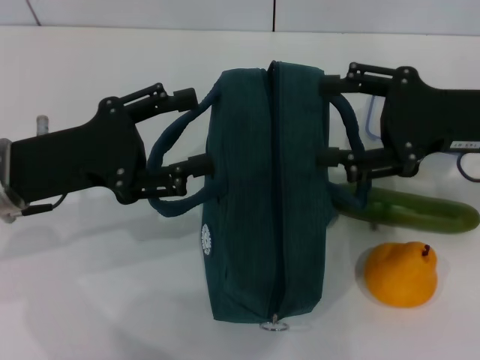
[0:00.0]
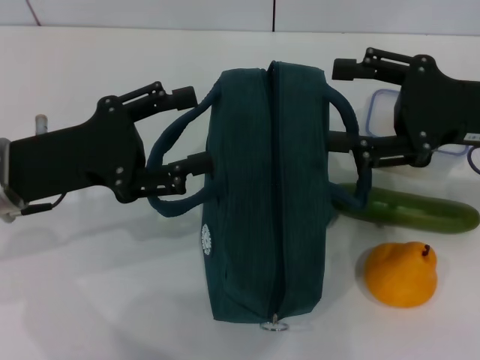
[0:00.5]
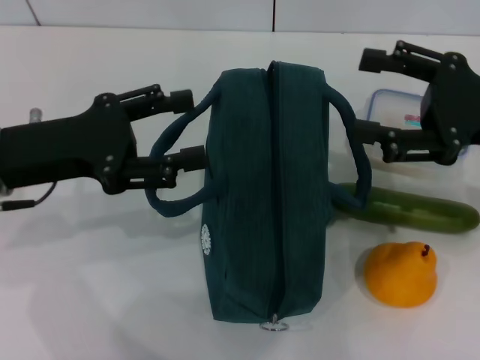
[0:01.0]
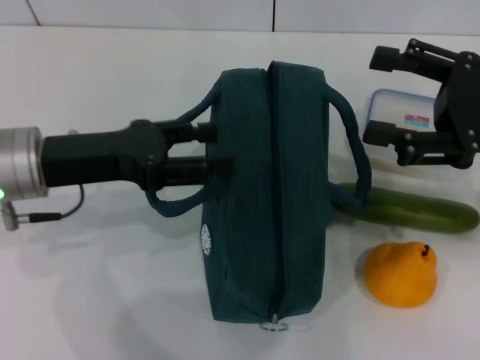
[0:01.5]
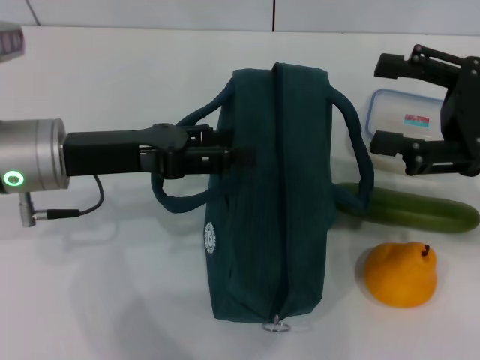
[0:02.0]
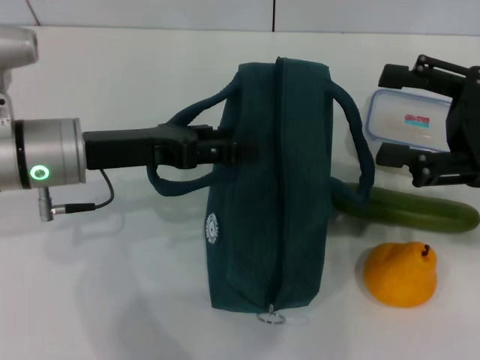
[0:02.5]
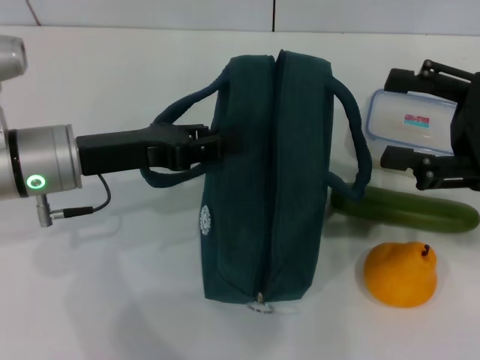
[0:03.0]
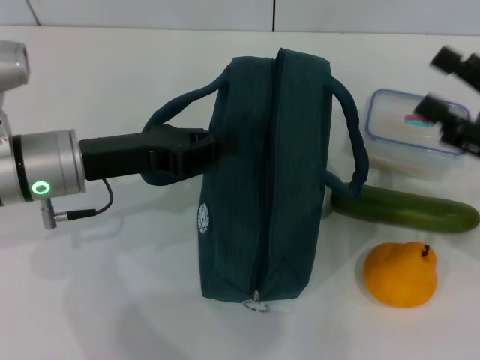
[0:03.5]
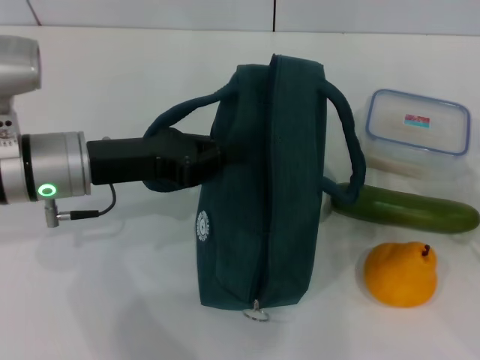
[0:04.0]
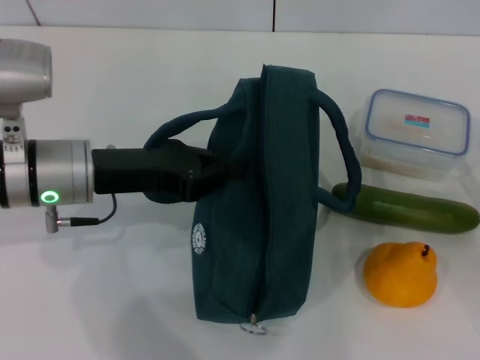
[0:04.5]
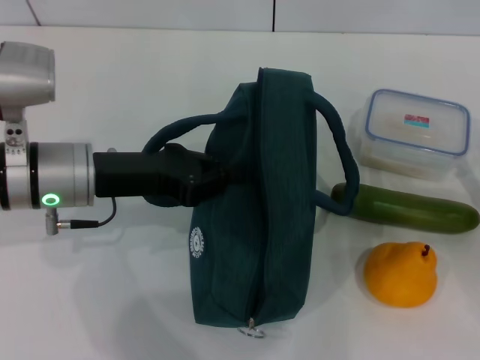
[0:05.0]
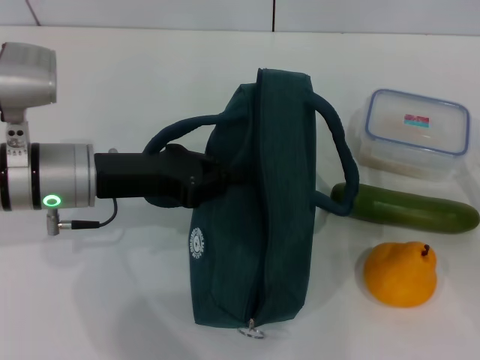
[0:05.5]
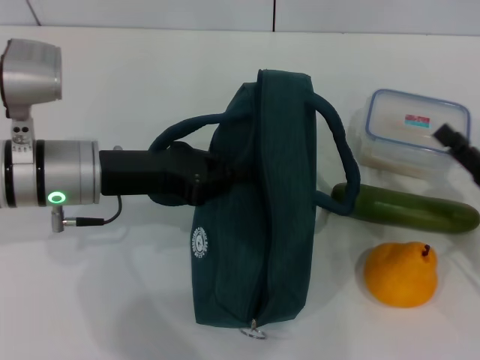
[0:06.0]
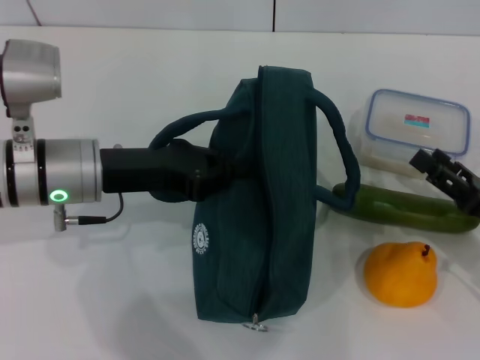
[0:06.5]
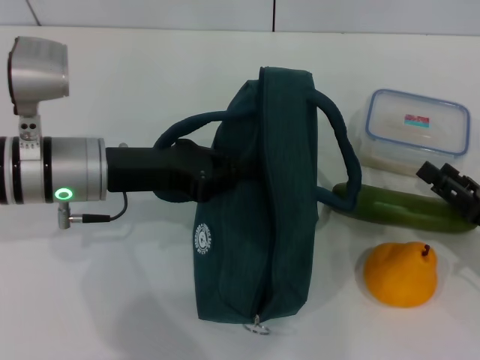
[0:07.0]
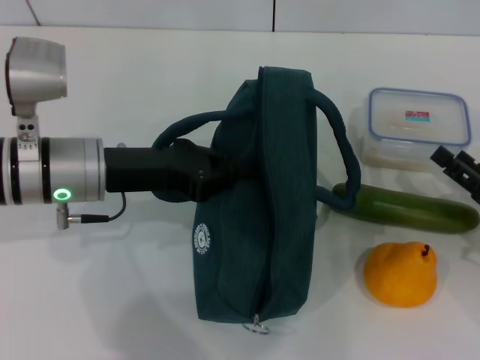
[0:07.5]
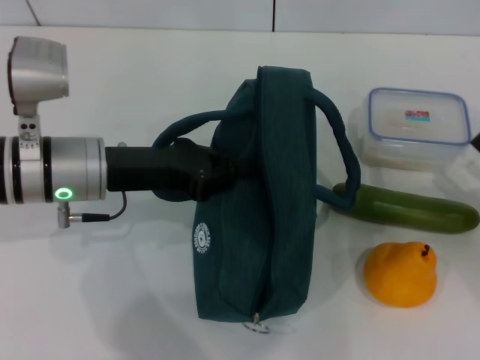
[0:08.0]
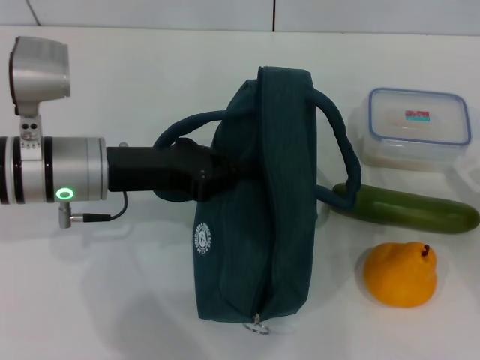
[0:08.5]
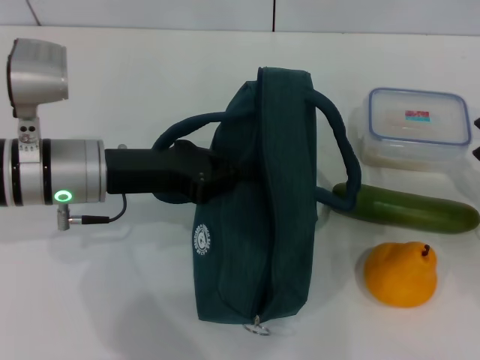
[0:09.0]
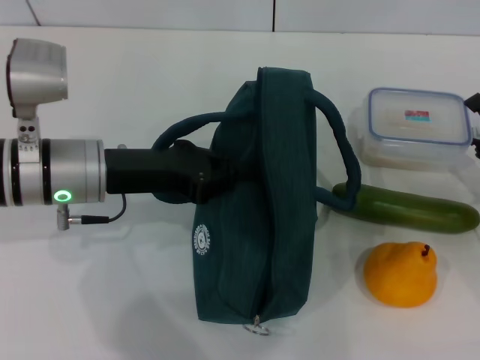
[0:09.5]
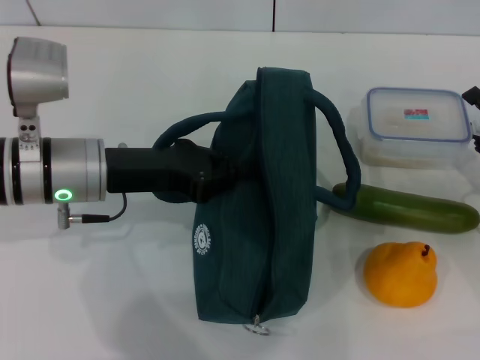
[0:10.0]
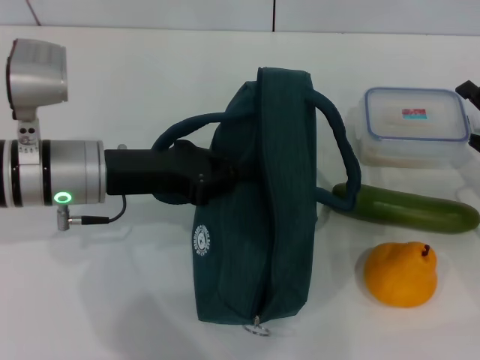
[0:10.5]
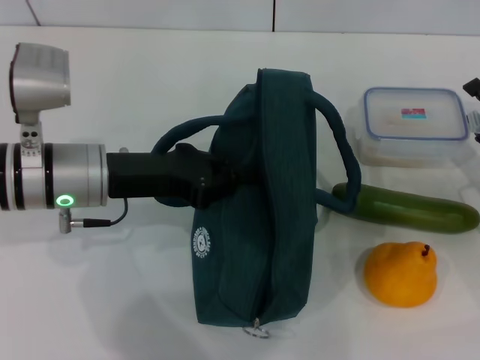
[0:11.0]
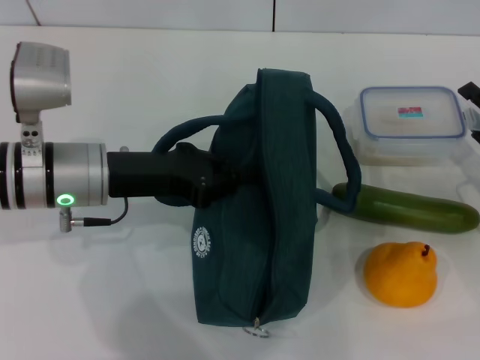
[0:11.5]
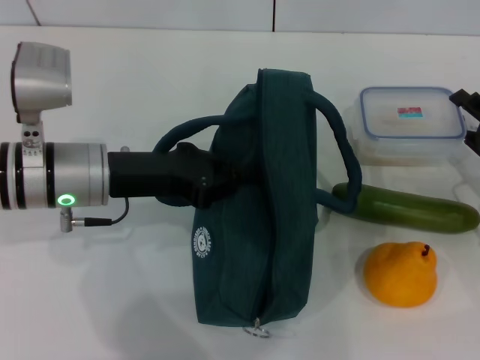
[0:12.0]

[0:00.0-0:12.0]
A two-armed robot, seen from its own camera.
Step, 0.0 to 3.0 s: Hold the lunch bag with your left hand.
2.0 to 4.0 s: The right gripper is displaced downward and backward by roughly 15 cm. The left gripper closes up.
6.0 to 8.0 s: The grippers move only a little.
8.0 to 10.0 s: The right gripper travels forward by roughly 5 cm.
10.0 to 12.0 s: The grippers stay close to where they were, moving slightly.

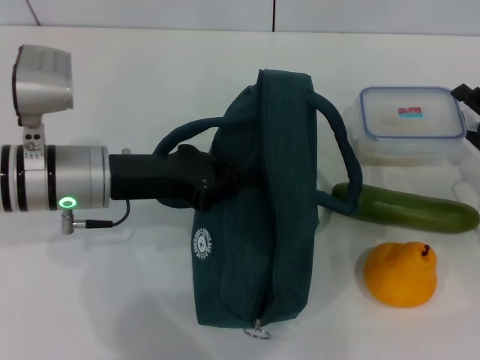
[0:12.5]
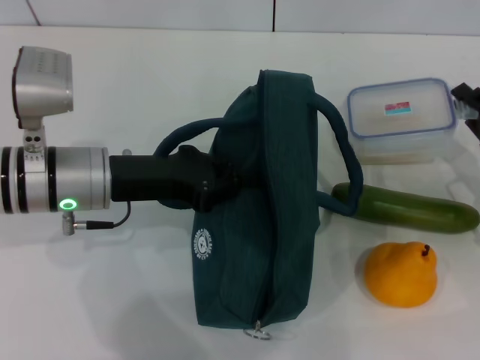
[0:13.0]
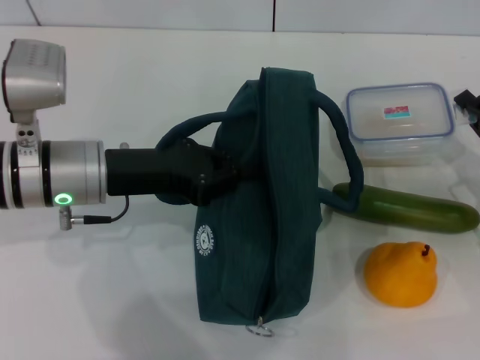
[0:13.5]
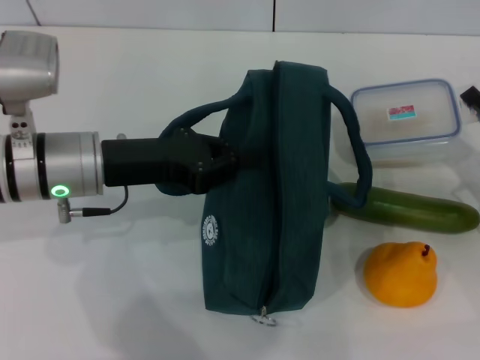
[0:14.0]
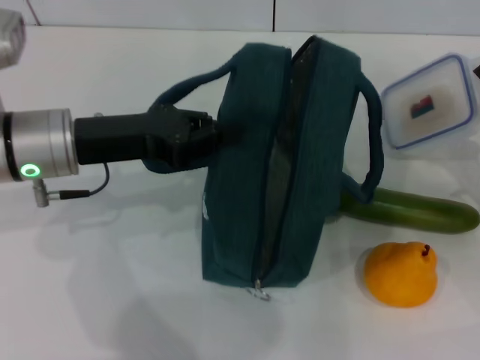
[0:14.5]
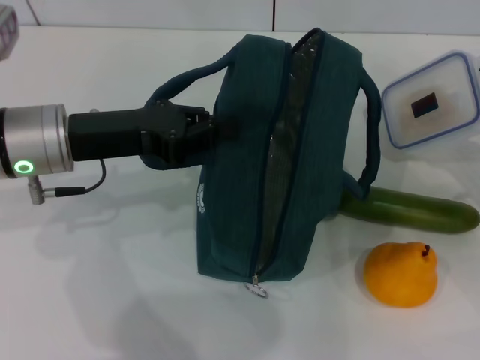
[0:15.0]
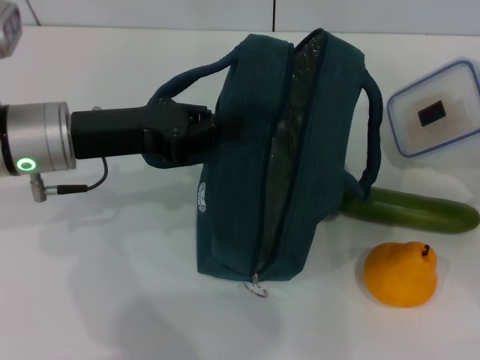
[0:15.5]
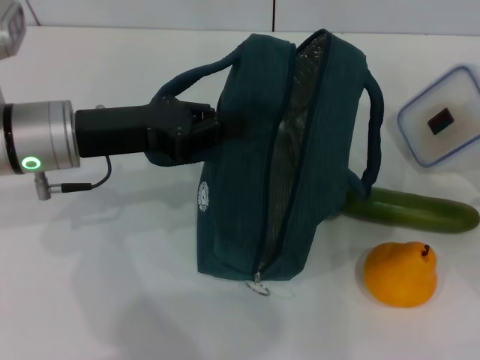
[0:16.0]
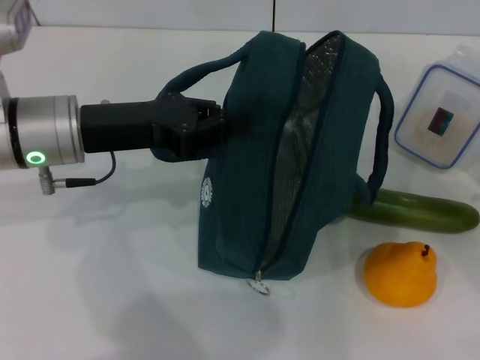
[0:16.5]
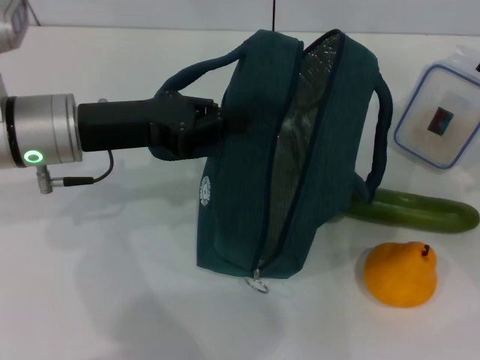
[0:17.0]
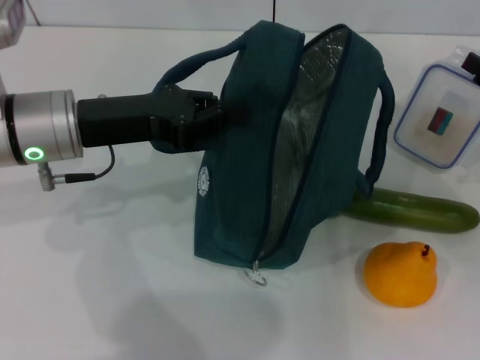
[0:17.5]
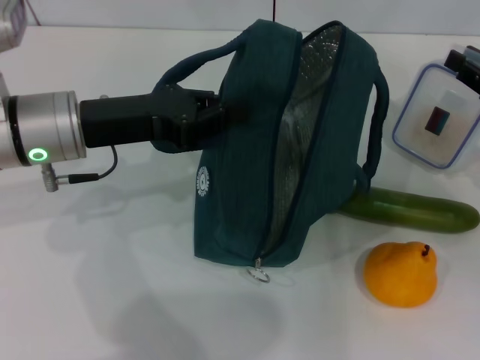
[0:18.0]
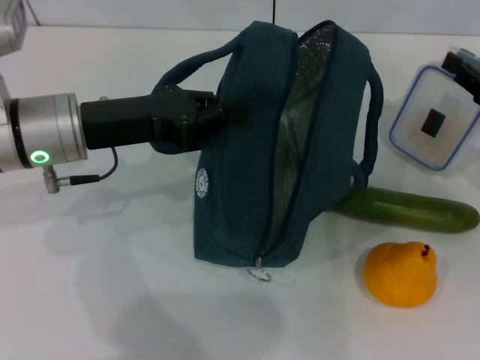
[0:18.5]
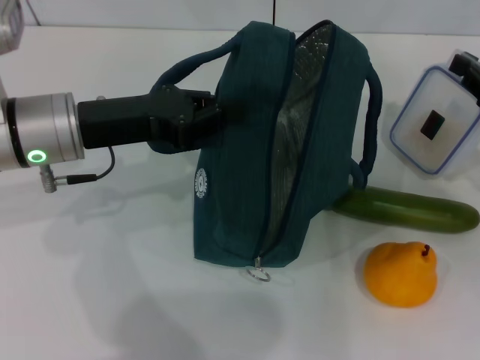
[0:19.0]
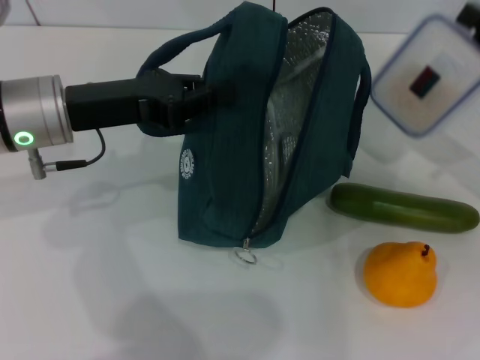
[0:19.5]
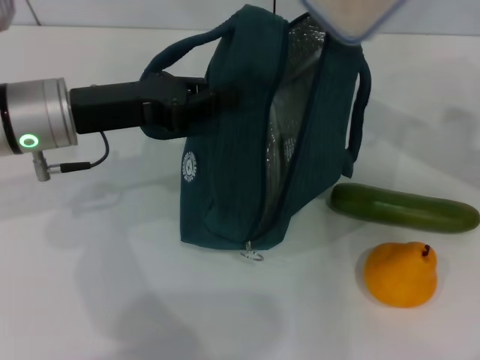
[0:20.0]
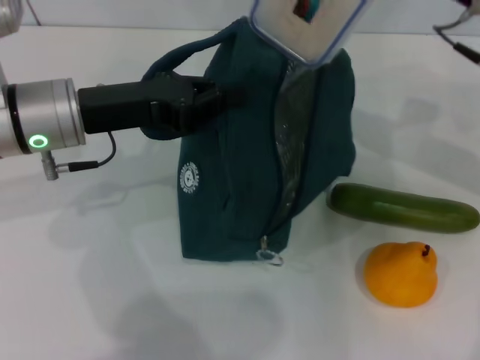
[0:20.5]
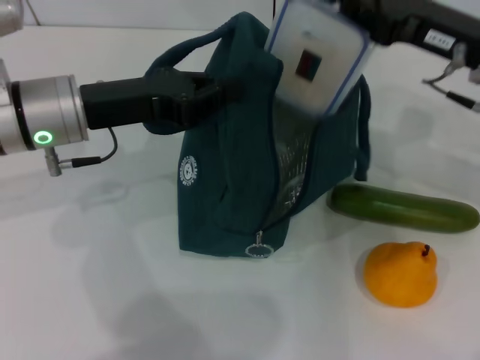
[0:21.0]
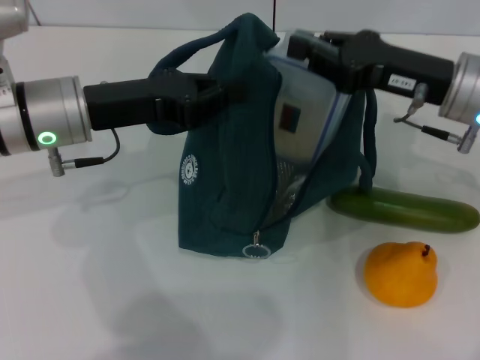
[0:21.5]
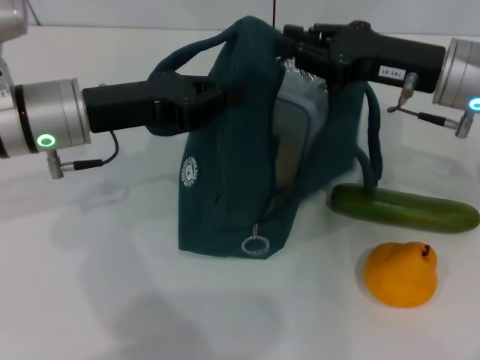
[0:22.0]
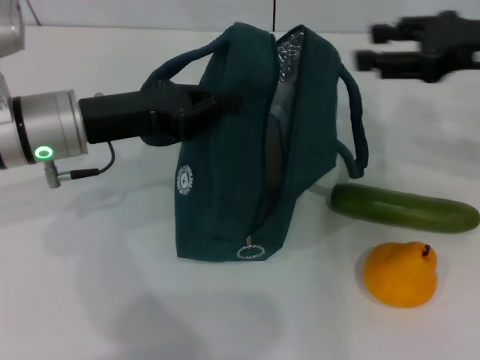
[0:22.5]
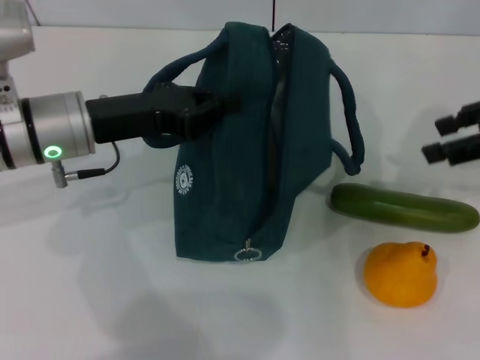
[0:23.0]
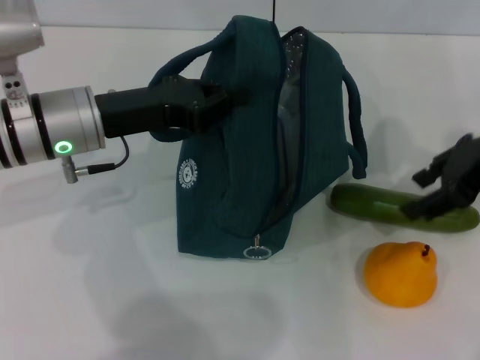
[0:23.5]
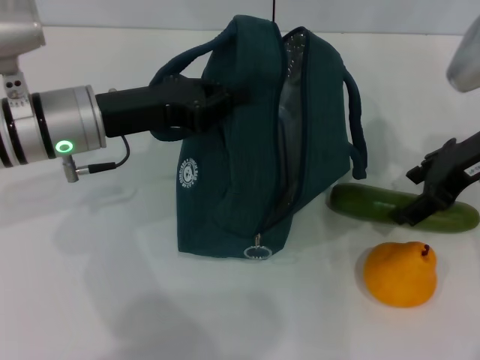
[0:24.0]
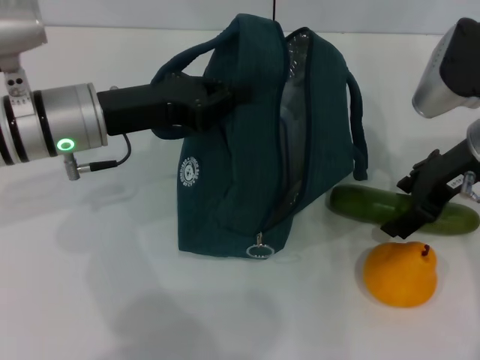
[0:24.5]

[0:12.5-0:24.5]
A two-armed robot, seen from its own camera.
Step, 12.5 to 18.5 s: Pick up the lunch box with your right hand.
Step, 19.0 to 22.0 s: Place the lunch box into the lunch bag with your right hand.
12.5 to 14.5 s: The right gripper closes its fingers.
14.5 to 16.5 s: There are only small adjustments of the grippers.
16.5 to 18.5 s: The right gripper ends up some 5 cm from where it was.
18.5 to 20.5 s: The right gripper is displaced to the left and upward by roughly 15 cm.
20.5 to 22.5 s: The right gripper opens.
22.5 to 24.5 s: The right gripper is displaced downward and to the left by approximately 5 cm, and opens.

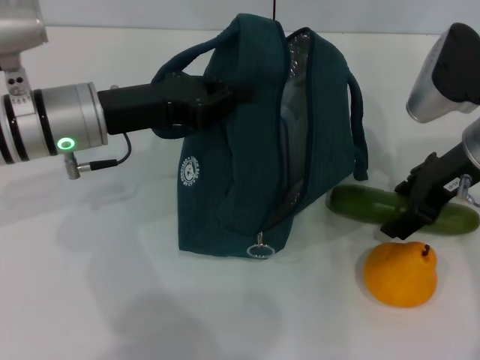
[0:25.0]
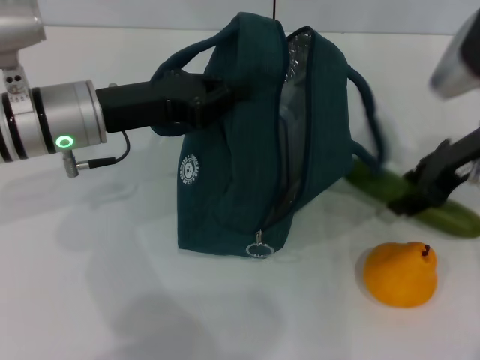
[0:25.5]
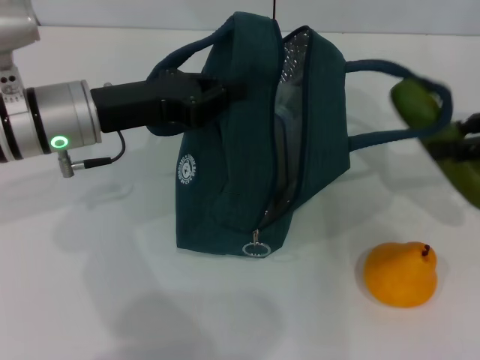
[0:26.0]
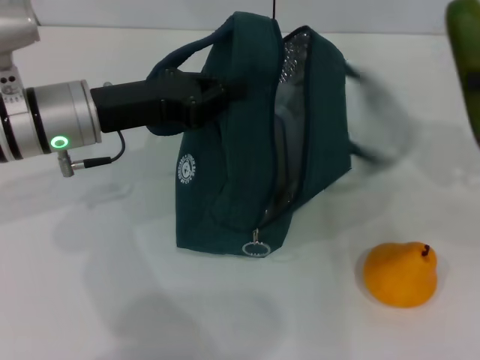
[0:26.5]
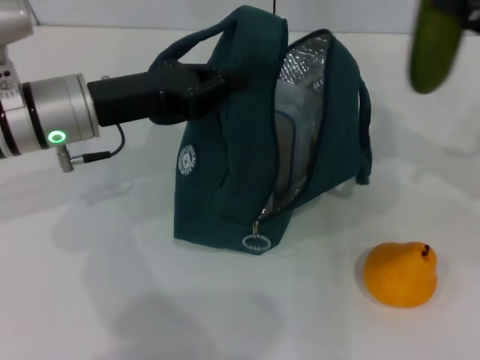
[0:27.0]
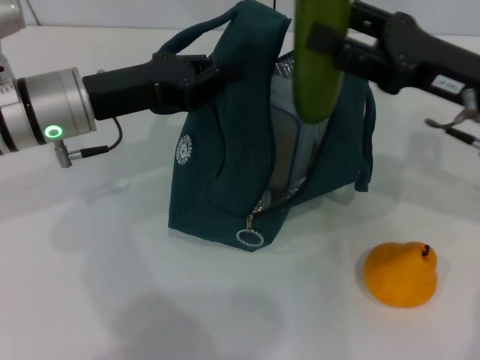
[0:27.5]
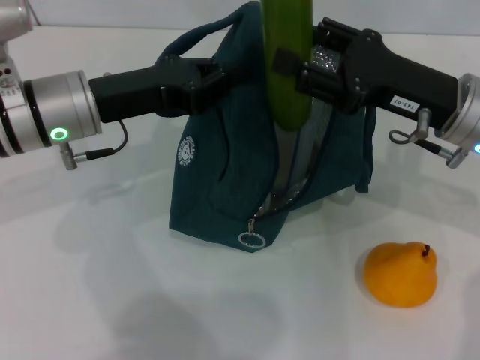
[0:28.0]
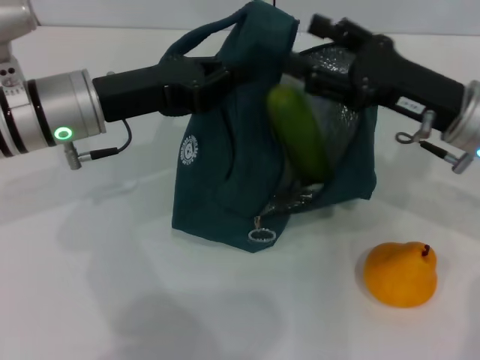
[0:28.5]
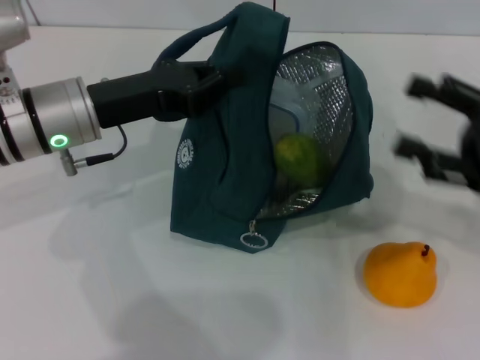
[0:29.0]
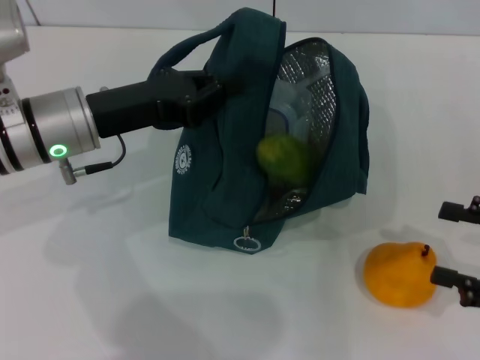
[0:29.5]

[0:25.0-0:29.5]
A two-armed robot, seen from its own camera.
Step, 25.5 to 28.5 s: Put the cucumber into the lunch bag with your right hand.
25.0 to 27.0 s: The right gripper is displaced to the right by some 10 cm.
27.0 to 29.5 s: The right gripper travels backward and downward by roughly 15 cm, and moves about 10 cm to the left and comes back.
